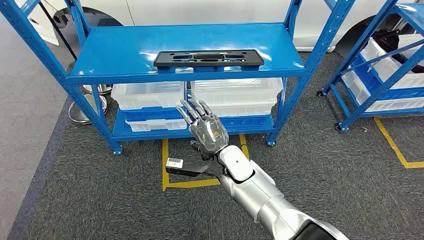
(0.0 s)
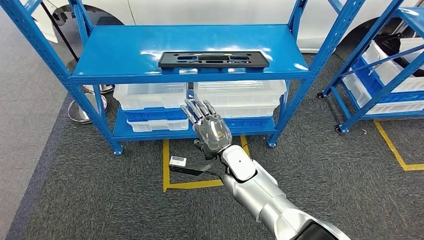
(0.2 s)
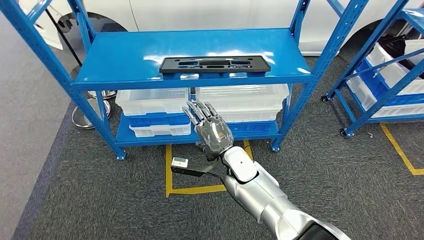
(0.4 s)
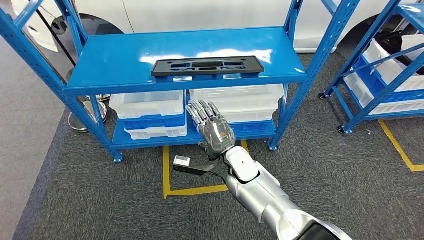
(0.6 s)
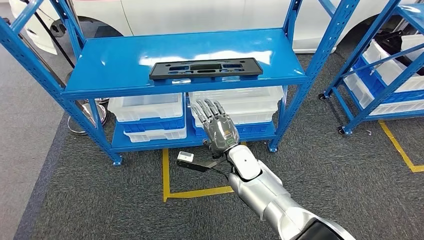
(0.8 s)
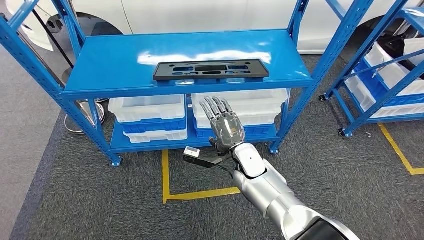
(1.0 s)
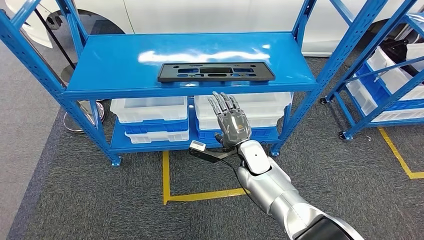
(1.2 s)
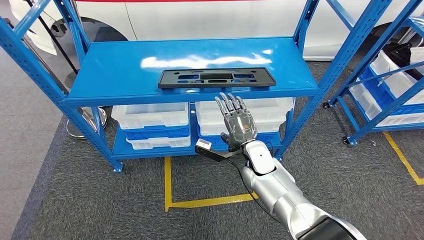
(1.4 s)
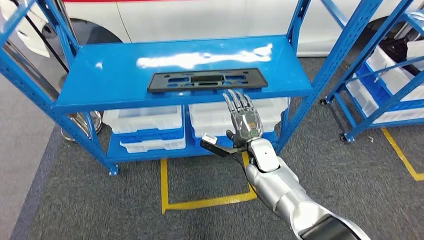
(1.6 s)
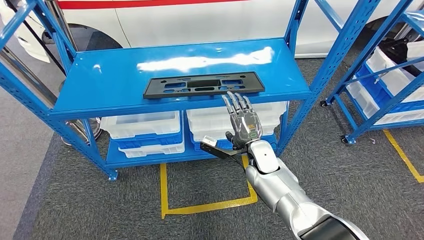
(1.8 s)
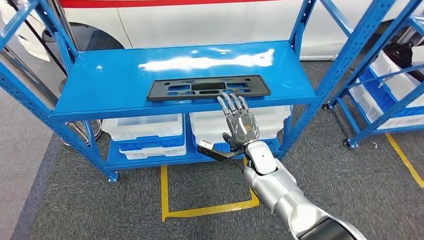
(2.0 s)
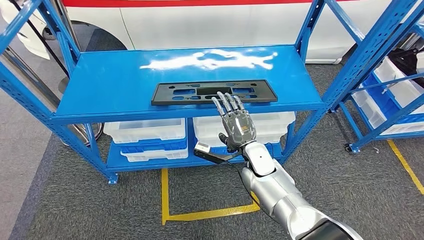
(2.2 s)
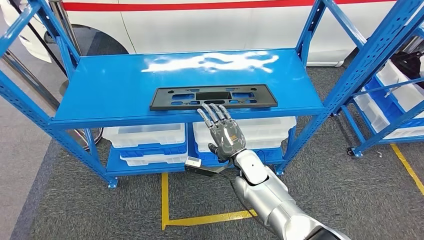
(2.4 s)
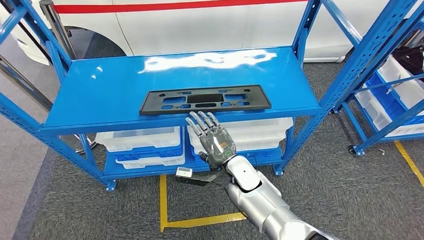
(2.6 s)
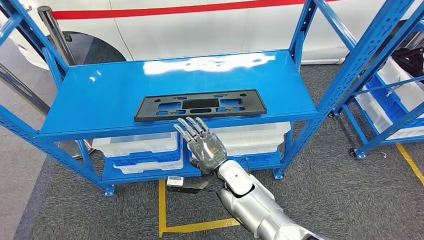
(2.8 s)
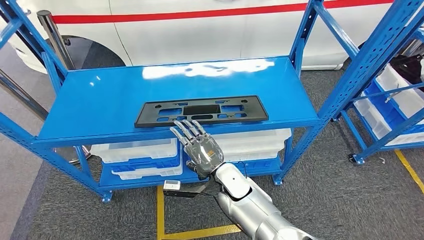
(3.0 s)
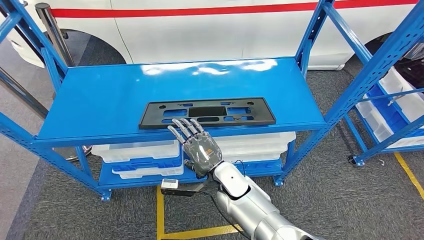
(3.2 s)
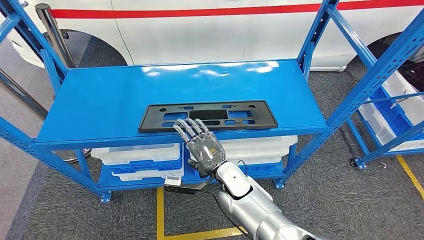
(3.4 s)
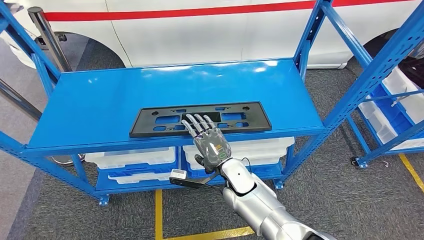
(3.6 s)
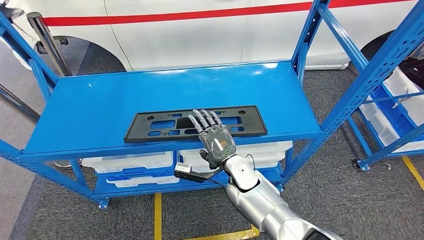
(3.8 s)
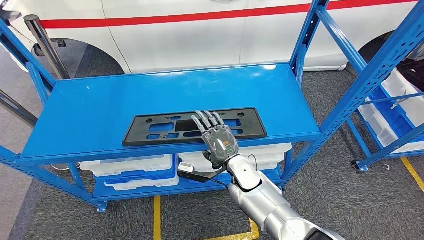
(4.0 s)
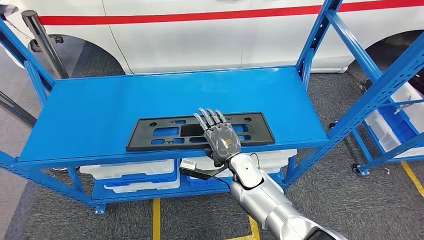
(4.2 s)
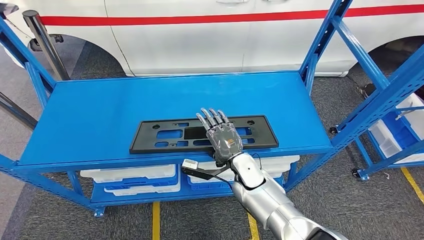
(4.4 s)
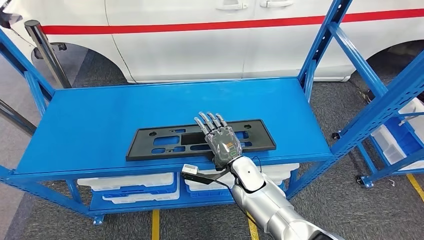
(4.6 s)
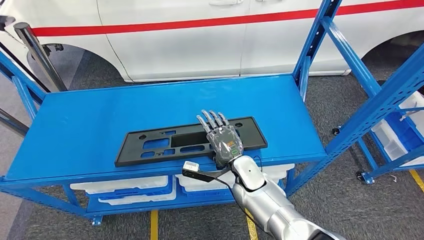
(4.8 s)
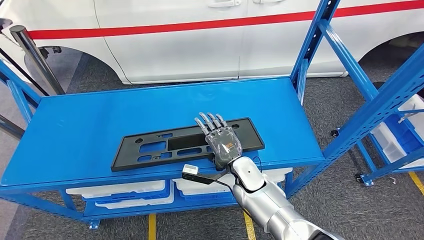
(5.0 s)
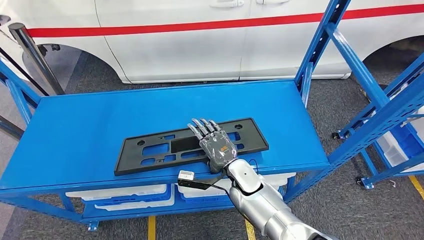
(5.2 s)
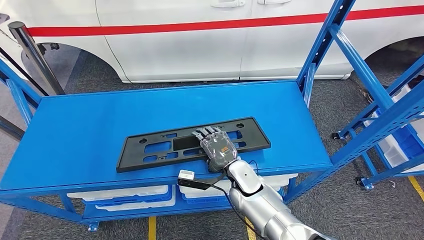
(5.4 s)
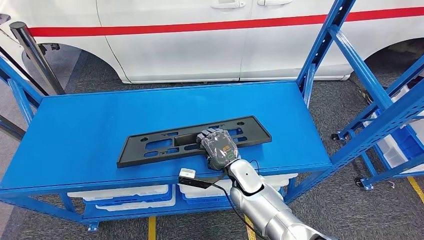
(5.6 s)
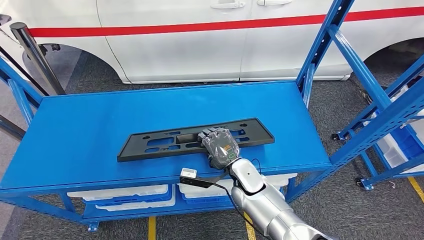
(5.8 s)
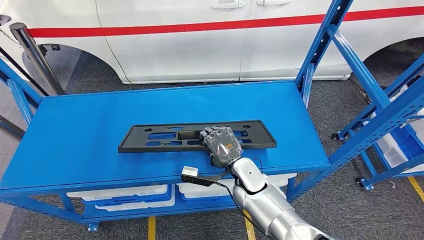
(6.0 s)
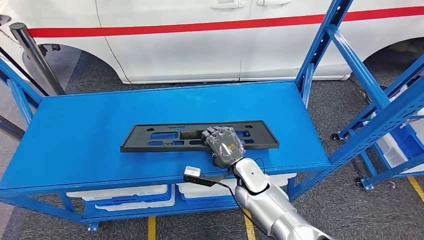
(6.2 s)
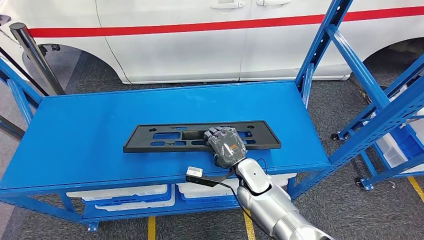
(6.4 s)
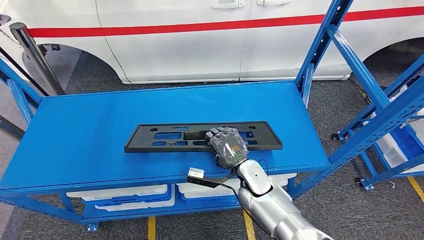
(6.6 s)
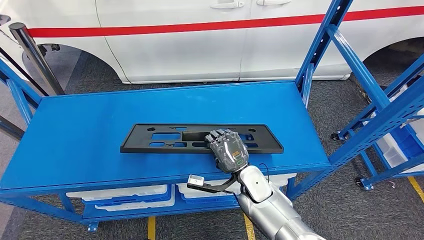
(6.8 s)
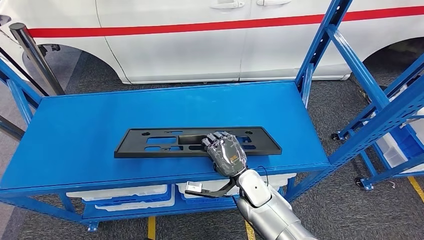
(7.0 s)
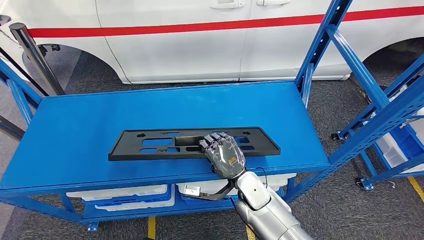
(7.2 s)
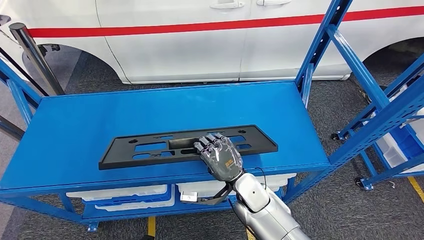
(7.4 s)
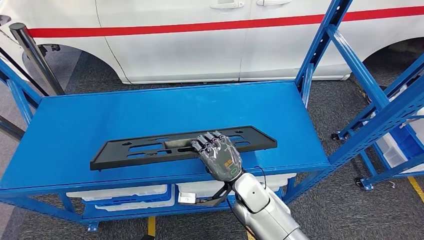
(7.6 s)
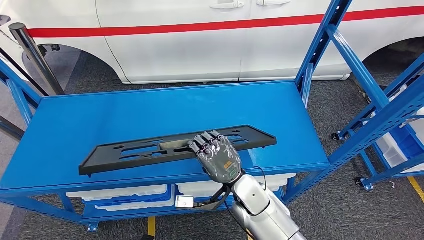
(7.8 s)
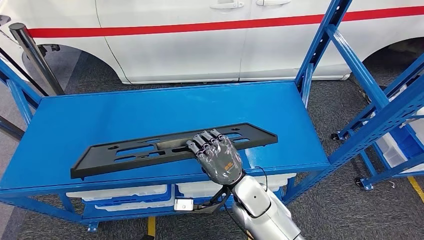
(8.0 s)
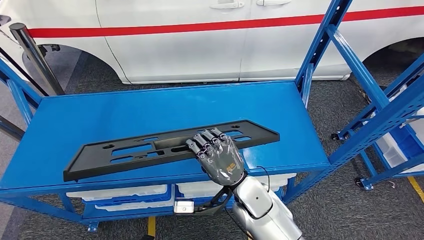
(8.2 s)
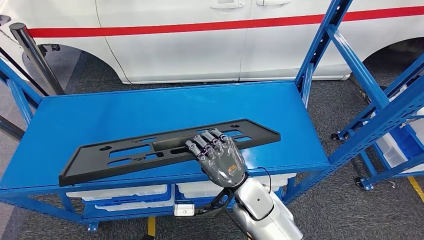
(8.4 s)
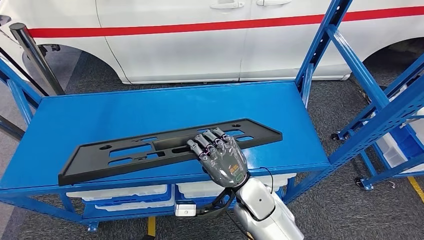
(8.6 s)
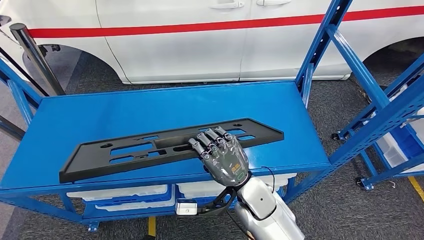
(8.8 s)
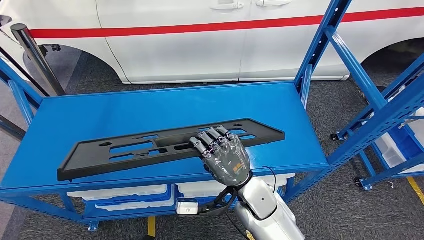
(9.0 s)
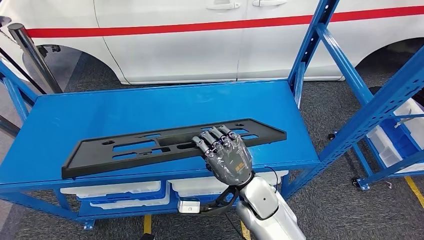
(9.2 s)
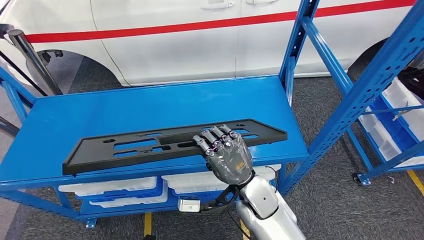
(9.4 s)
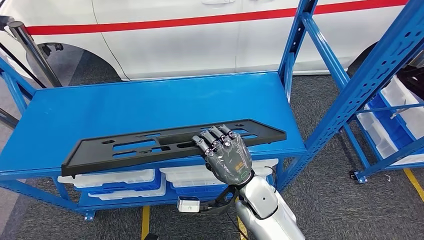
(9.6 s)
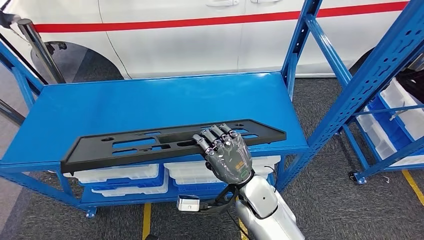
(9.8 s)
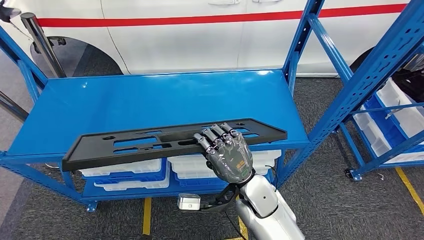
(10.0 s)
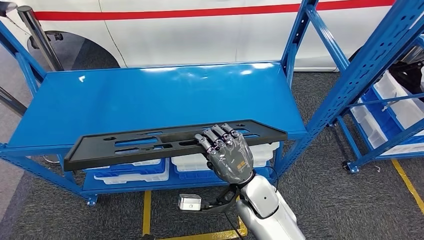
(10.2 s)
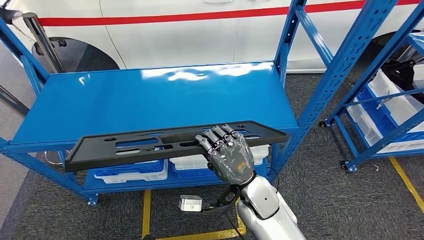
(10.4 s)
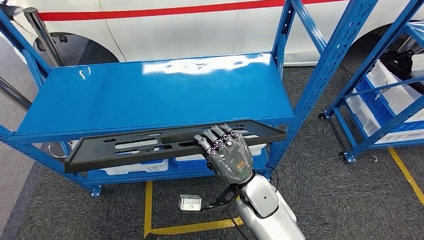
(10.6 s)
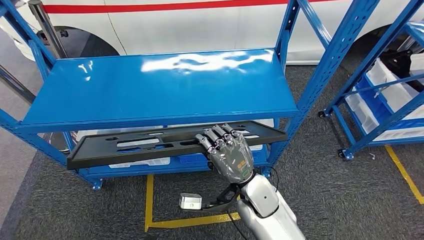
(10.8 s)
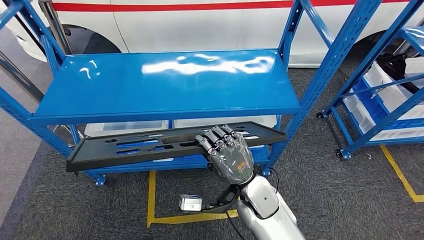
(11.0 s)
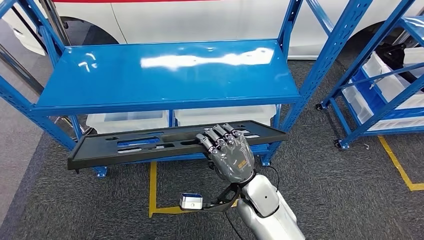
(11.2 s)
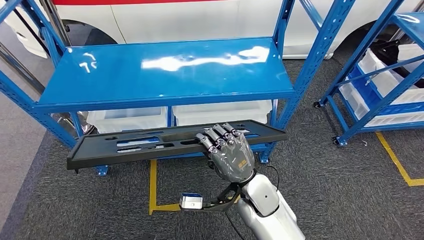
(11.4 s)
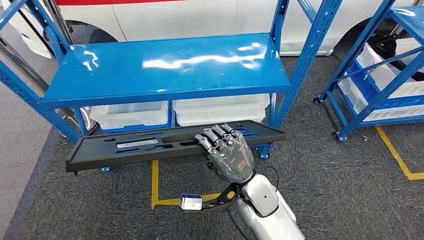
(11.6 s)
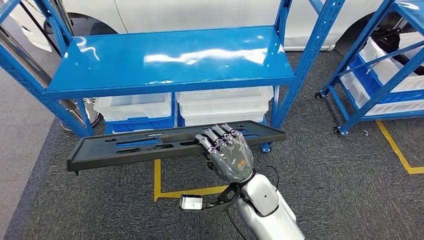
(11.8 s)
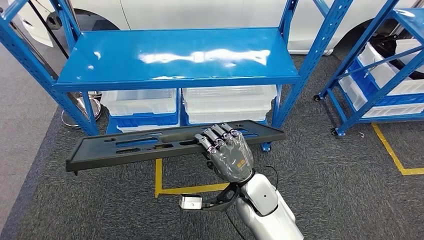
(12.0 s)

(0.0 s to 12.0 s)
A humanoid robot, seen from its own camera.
Step, 0.0 s - 8.4 s: Pick up the large material from the shelf.
7.6 s - 9.0 s: The right hand ends up roughly 5 cm from where it was.

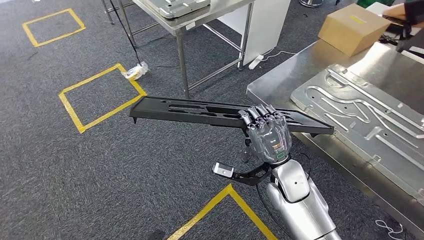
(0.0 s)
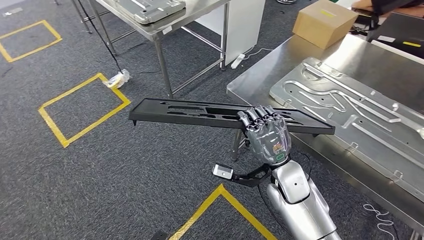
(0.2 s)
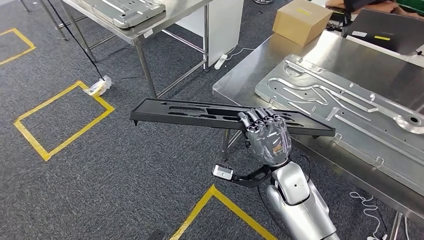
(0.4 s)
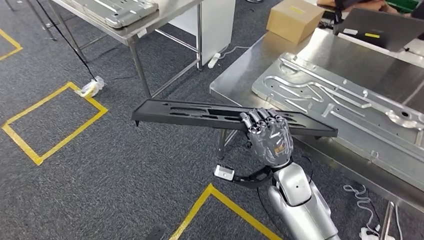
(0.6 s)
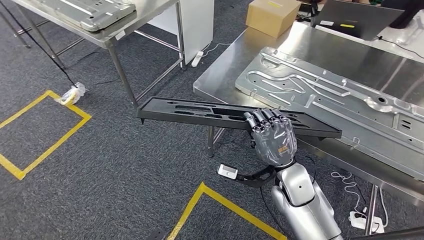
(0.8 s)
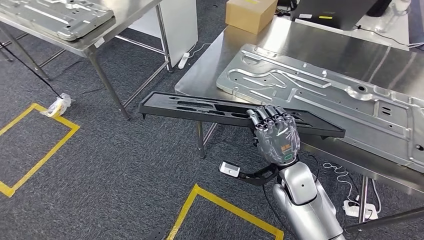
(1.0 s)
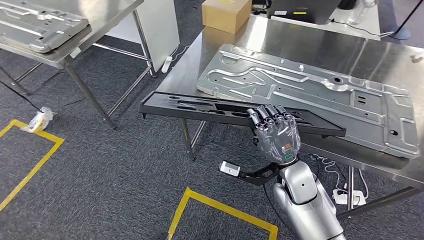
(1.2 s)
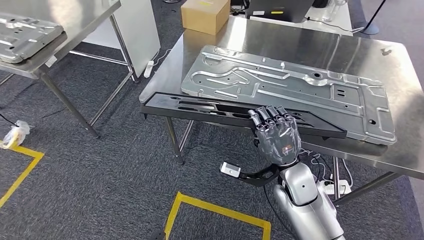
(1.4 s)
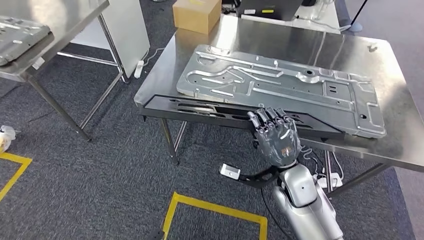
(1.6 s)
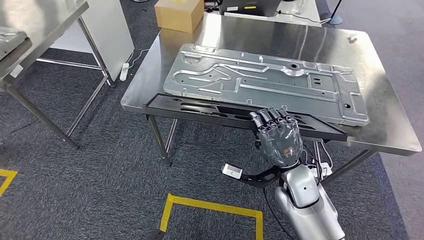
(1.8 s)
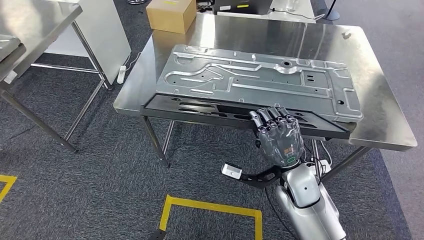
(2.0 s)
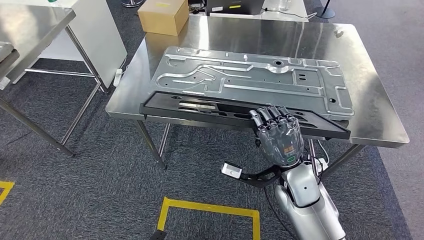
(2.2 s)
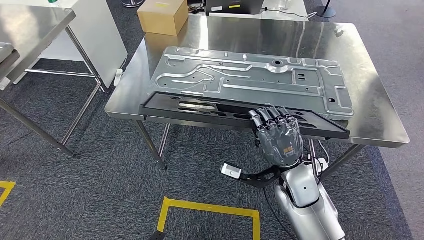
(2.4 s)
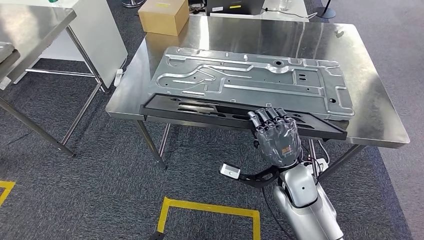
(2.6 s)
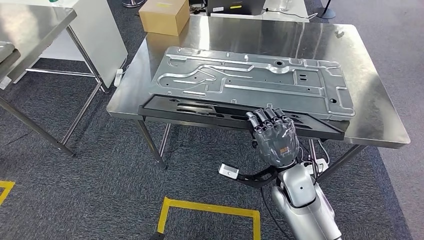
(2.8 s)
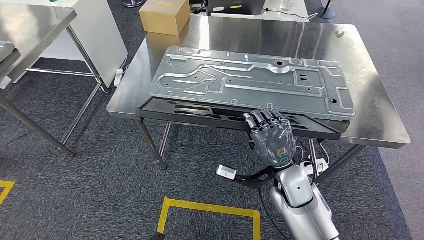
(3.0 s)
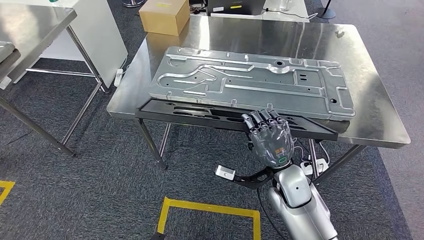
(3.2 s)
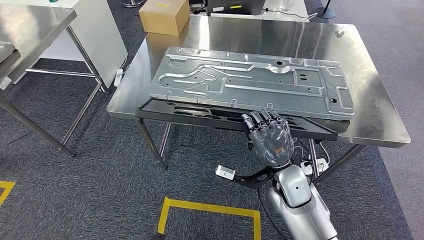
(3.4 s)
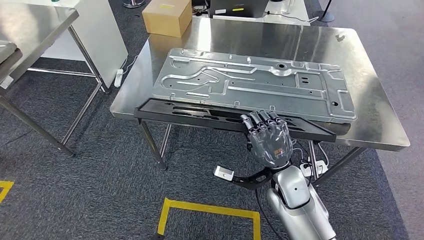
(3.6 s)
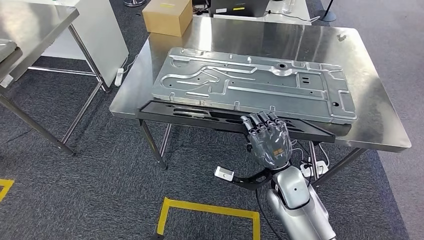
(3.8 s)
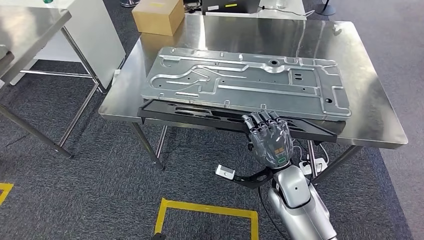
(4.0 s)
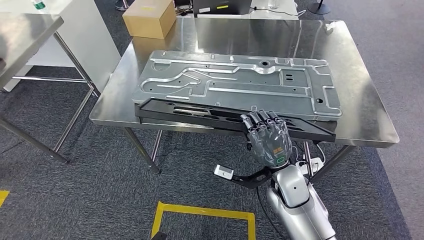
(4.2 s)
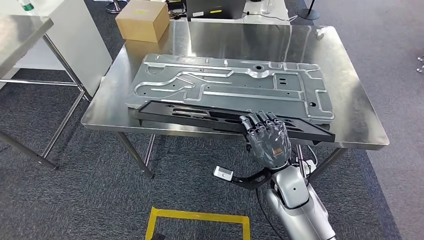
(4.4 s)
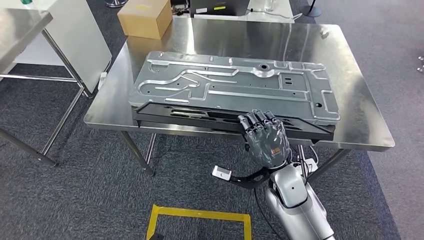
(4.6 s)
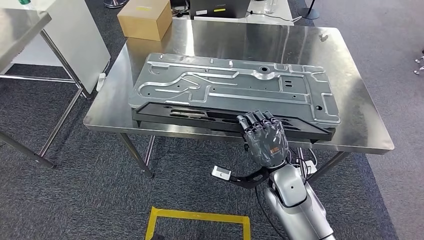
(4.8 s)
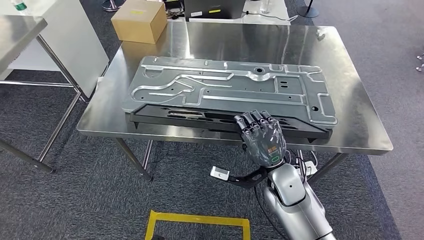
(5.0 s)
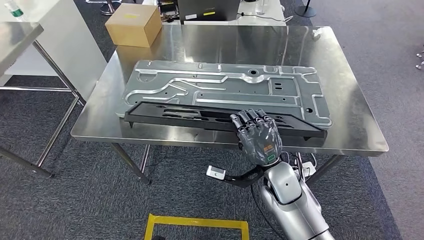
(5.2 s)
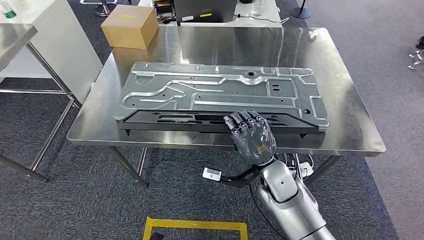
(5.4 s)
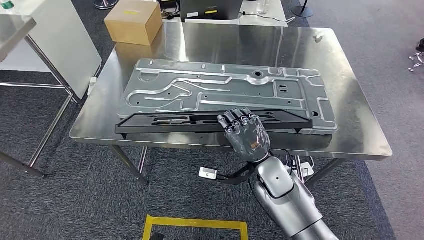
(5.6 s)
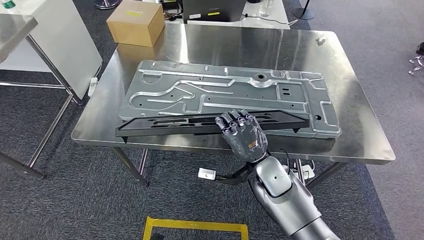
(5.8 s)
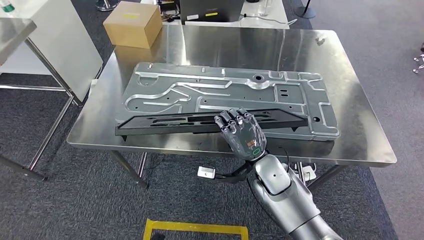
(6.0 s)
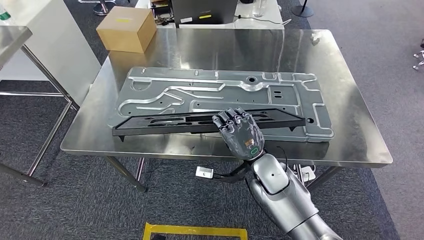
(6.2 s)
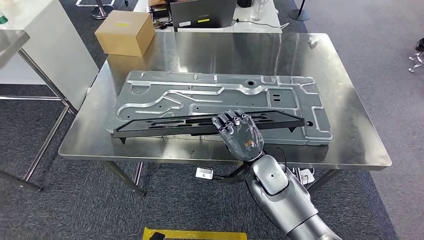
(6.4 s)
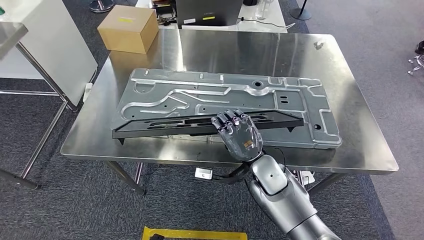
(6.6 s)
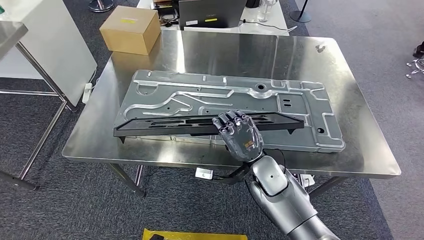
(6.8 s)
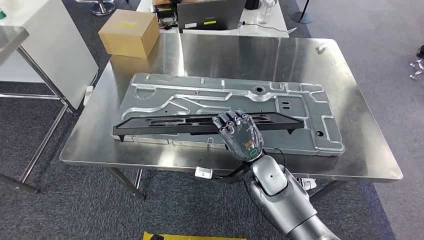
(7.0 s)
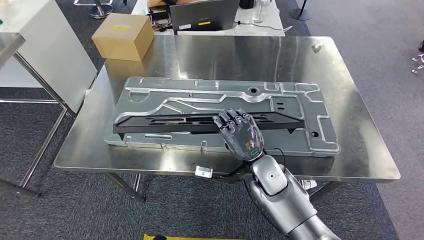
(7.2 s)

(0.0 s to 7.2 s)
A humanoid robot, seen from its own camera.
Step, 0.0 s - 4.6 s: Move the large material to the workbench.
